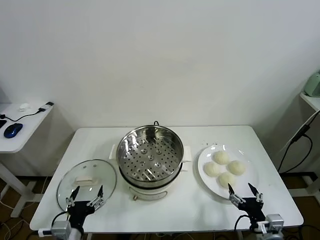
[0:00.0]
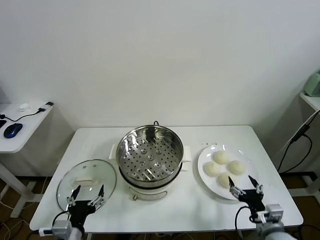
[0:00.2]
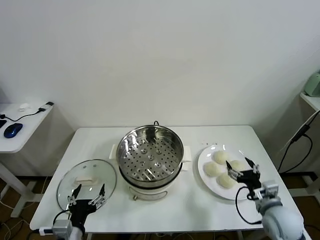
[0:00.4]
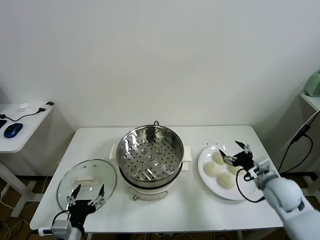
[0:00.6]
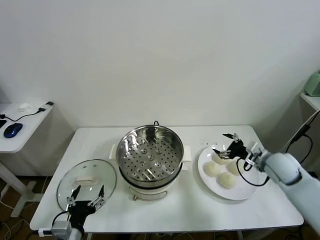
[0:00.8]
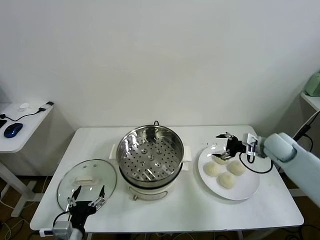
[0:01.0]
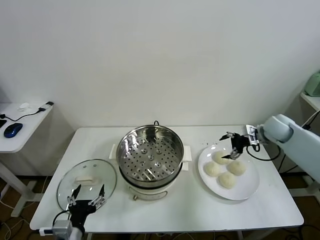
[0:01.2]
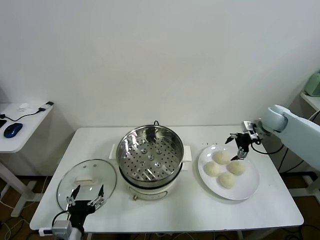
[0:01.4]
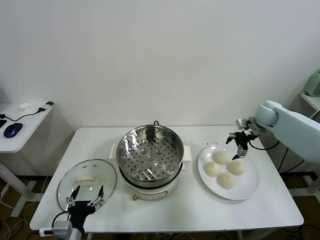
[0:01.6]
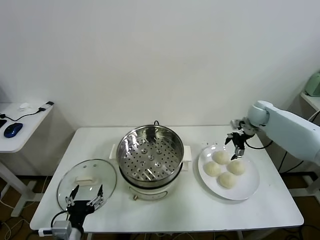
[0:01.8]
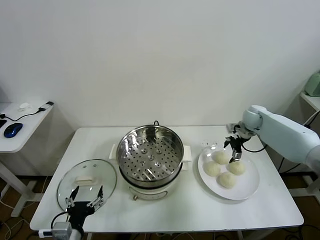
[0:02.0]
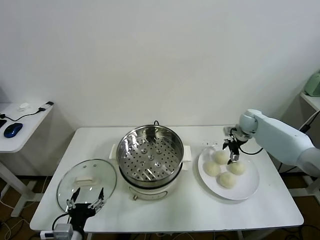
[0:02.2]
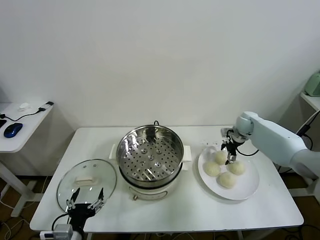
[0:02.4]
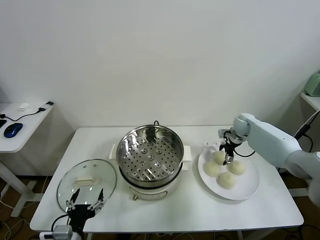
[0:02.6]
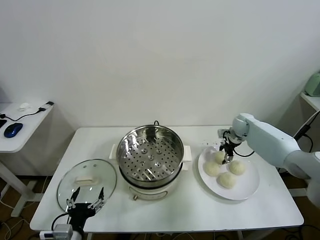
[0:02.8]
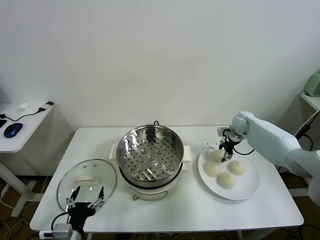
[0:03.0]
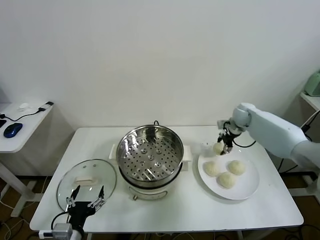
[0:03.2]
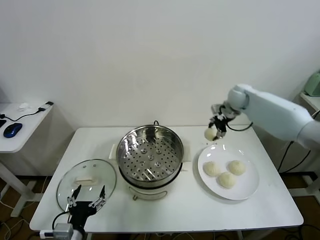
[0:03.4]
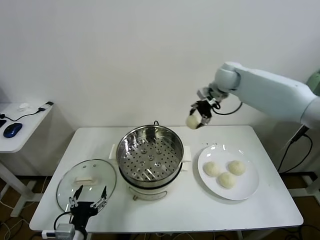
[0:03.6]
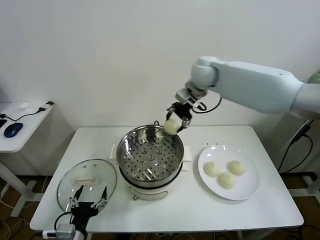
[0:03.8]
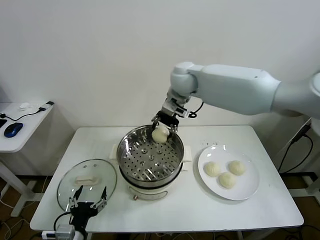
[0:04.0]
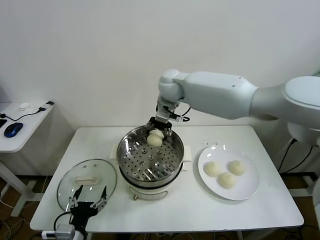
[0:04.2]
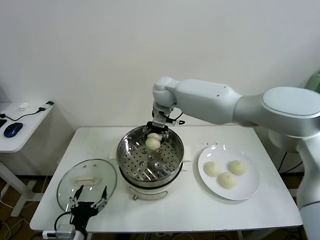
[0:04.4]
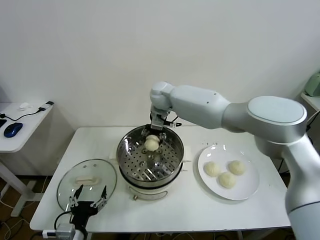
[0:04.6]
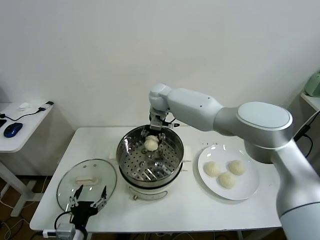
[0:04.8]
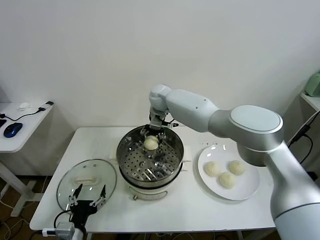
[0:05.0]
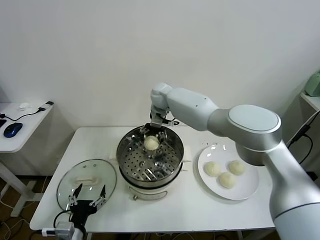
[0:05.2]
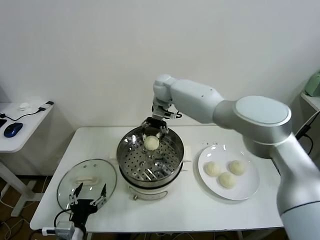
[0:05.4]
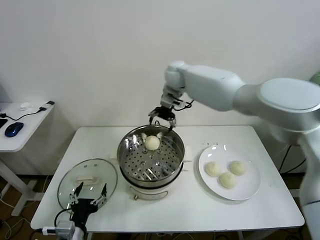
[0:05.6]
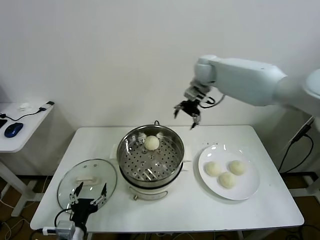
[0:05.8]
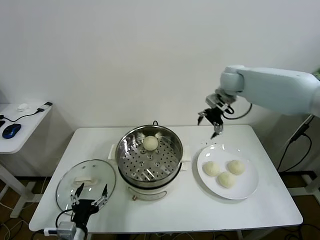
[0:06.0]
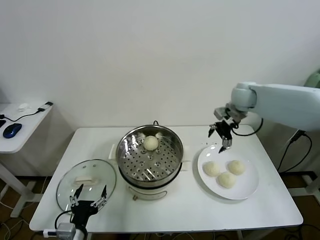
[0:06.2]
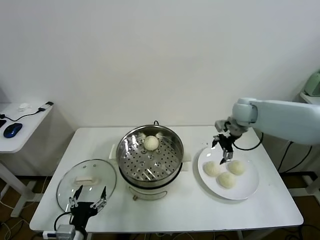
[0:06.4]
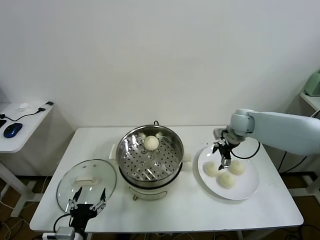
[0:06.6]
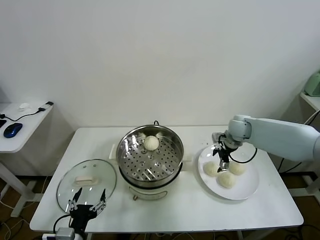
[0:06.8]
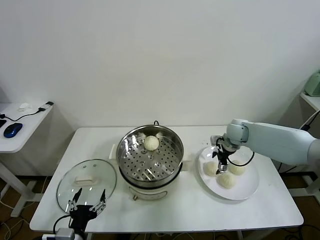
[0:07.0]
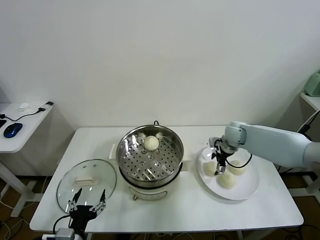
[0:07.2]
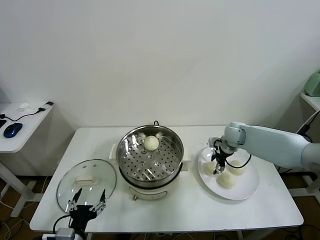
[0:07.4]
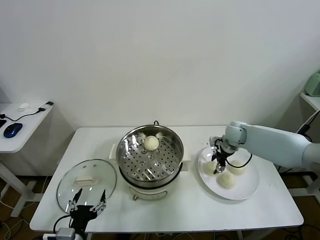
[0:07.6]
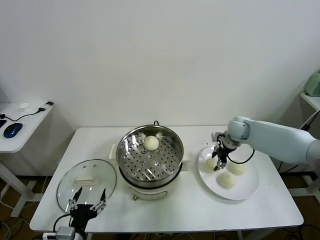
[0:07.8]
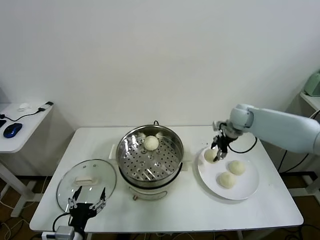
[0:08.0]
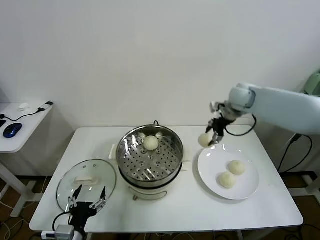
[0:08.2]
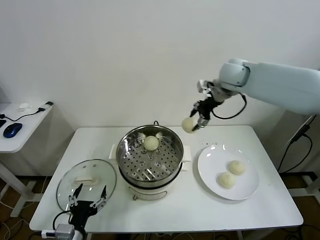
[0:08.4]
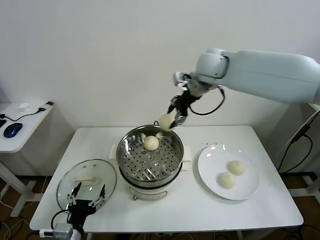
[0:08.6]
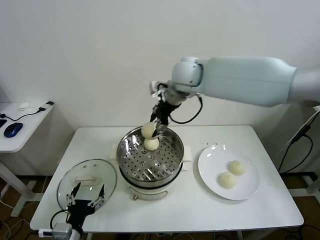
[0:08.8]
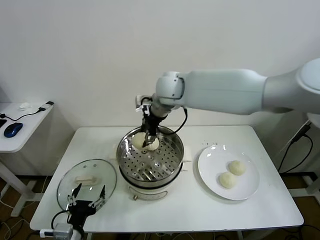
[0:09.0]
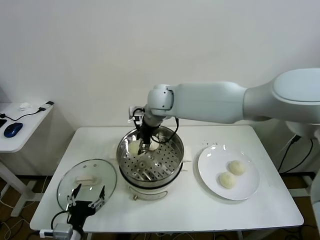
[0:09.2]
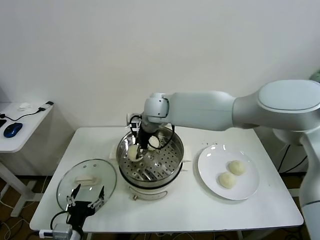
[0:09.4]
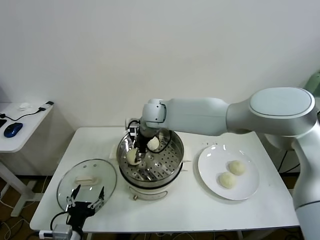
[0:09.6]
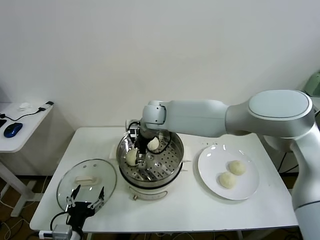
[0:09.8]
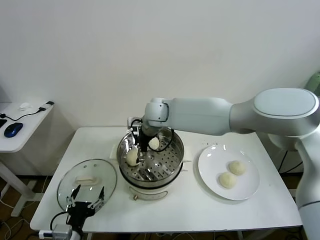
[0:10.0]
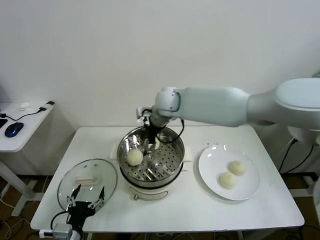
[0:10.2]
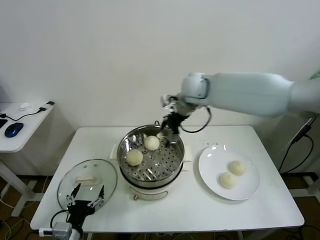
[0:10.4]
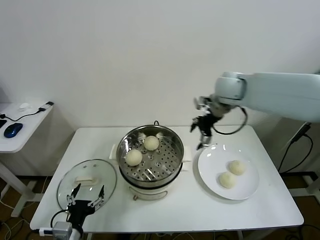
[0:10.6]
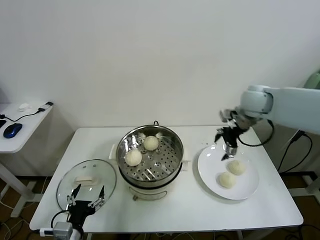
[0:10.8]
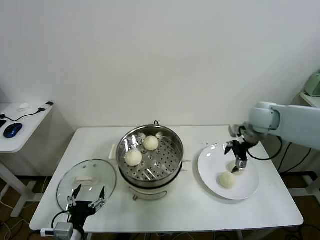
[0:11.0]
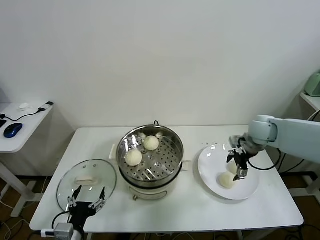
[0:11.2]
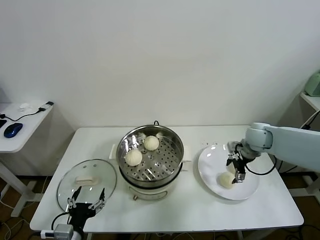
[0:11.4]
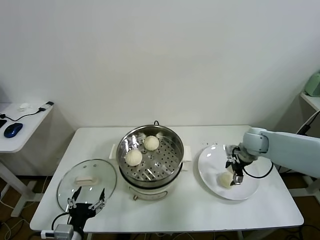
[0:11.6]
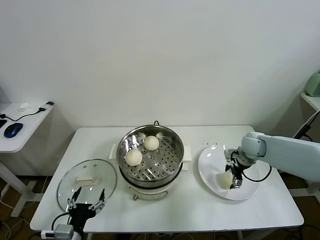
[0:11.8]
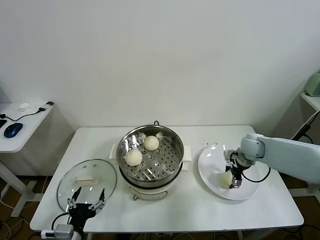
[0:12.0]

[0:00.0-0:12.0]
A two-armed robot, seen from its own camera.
Task of the whole recording: take steamed baozi put them in steamer.
Step, 0:00.0 to 0:02.8: Grasp the baozi in the plate with right gripper.
Step, 0:03.0 to 0:05.2: Place the baozi on the steamer with right gripper.
Step, 0:05.4 to 0:07.6: Grasp the baozi in the plate with right gripper.
Step, 0:07.8 to 0:10.0: Place the baozi on the steamer with right gripper.
0:01.6 to 0:03.0: The right gripper is displaced downward by approximately 5 cm, and closes.
0:03.0 to 0:04.4: The right gripper moves to the left and upward, approximately 35 cm.
0:04.4 to 0:06.0: The right gripper moves to the right, approximately 25 cm, and opens its fingers.
0:06.0 to 0:07.6: The right gripper heads downward, covering about 20 cm, and closes up.
0:07.6 to 0:09.0: The right gripper moves to the left and upward, roughly 35 cm.
0:09.0 to 0:10.4: The right gripper is displaced to the right by some 15 cm, and opens.
0:10.4 to 0:12.0: The right gripper travels downward and to the right by approximately 30 cm, and closes.

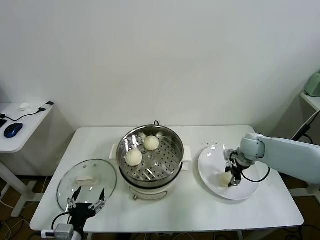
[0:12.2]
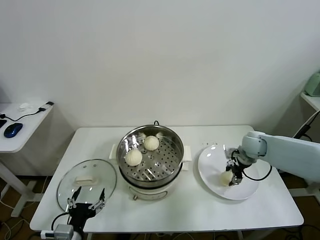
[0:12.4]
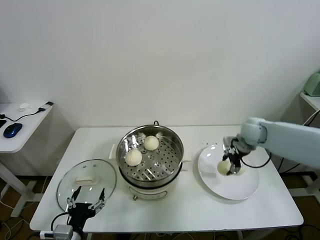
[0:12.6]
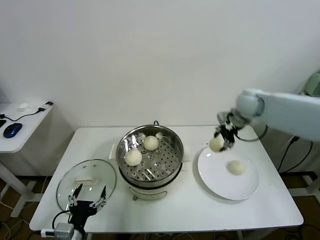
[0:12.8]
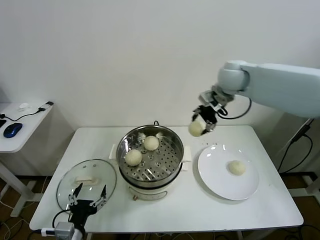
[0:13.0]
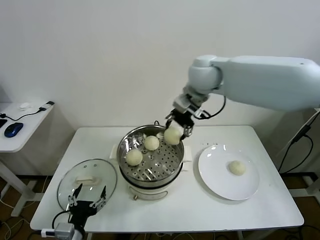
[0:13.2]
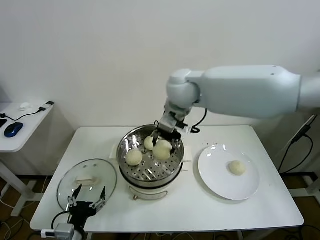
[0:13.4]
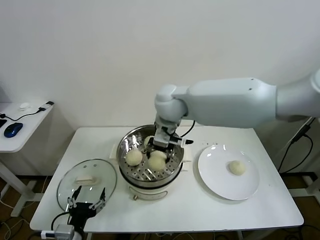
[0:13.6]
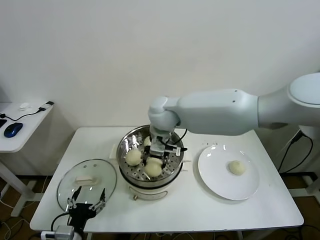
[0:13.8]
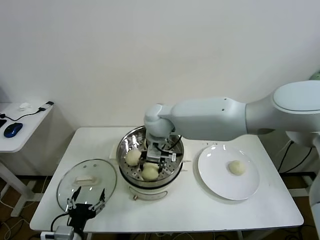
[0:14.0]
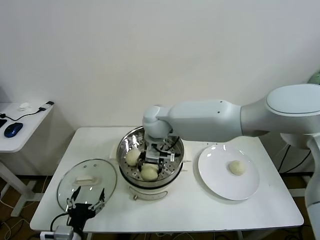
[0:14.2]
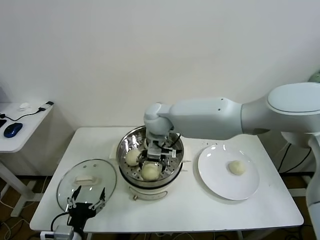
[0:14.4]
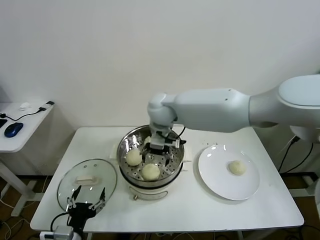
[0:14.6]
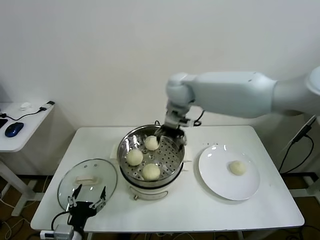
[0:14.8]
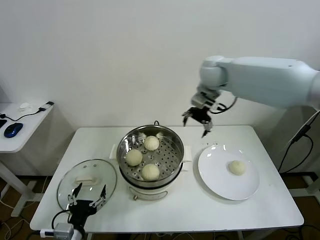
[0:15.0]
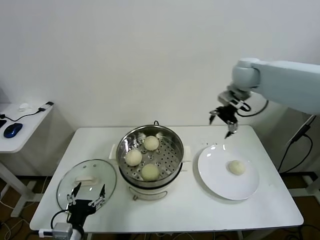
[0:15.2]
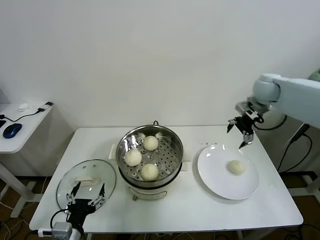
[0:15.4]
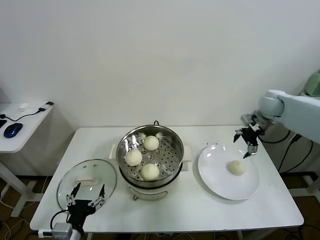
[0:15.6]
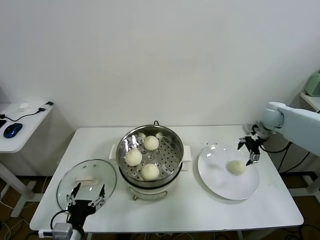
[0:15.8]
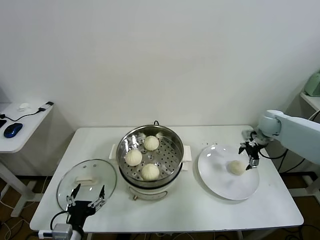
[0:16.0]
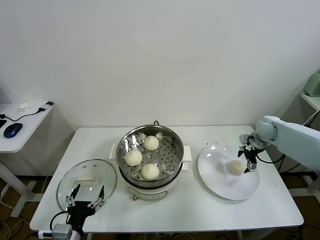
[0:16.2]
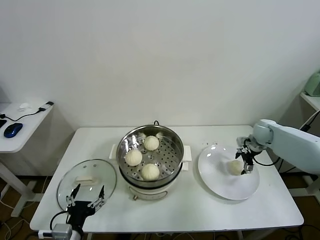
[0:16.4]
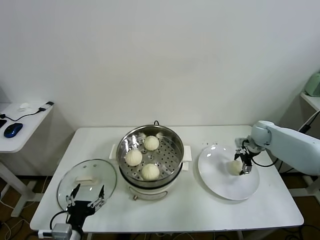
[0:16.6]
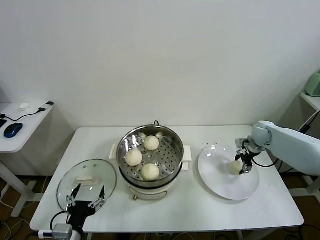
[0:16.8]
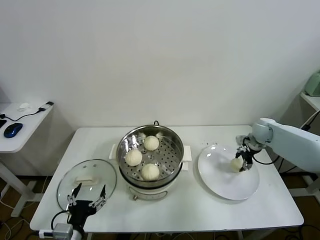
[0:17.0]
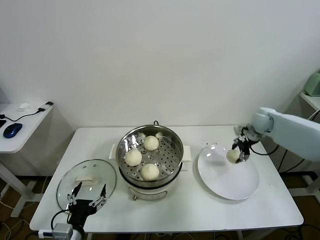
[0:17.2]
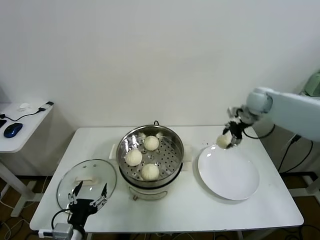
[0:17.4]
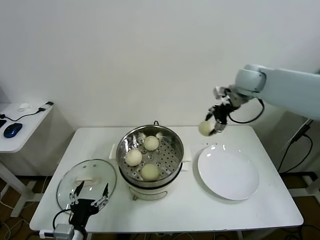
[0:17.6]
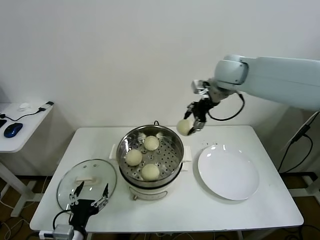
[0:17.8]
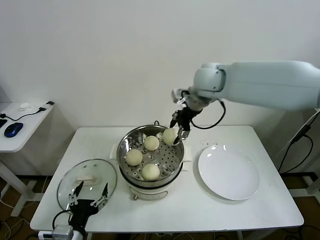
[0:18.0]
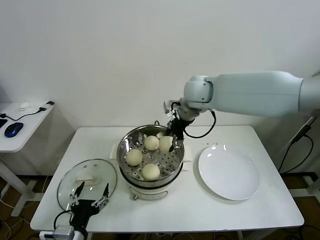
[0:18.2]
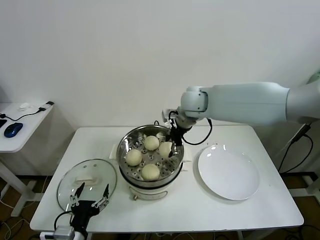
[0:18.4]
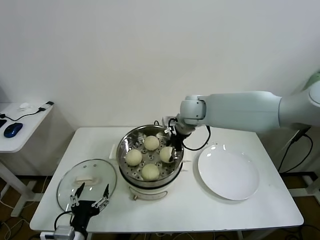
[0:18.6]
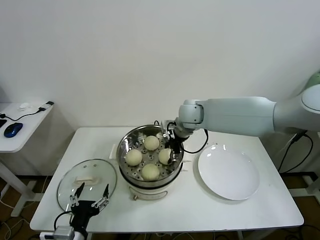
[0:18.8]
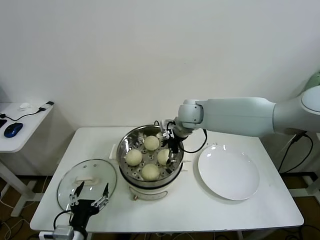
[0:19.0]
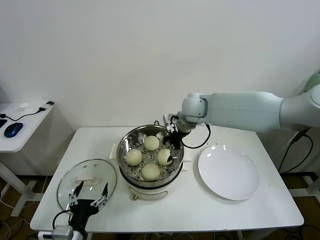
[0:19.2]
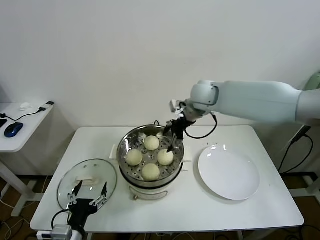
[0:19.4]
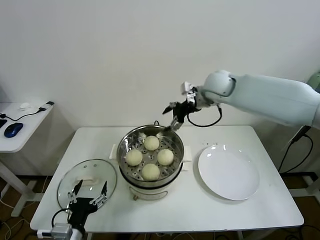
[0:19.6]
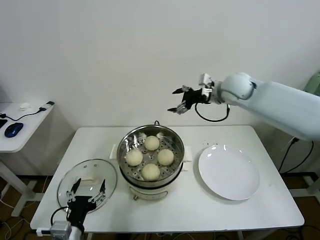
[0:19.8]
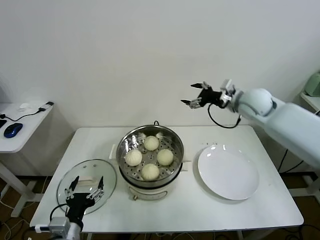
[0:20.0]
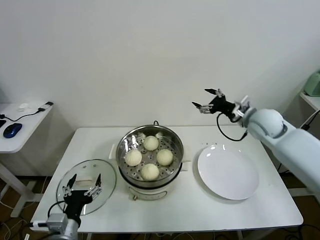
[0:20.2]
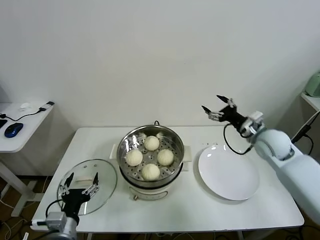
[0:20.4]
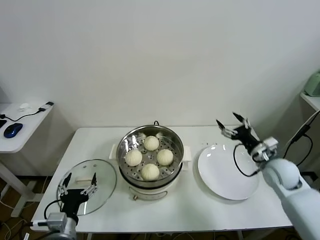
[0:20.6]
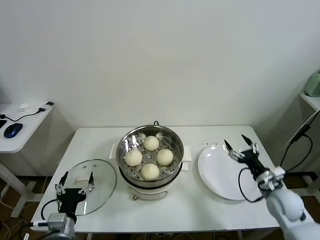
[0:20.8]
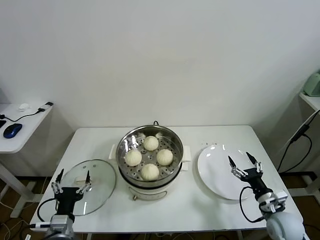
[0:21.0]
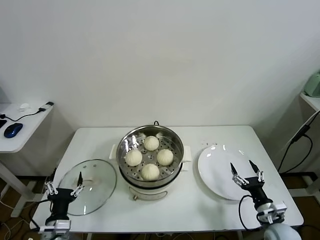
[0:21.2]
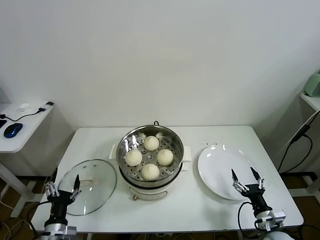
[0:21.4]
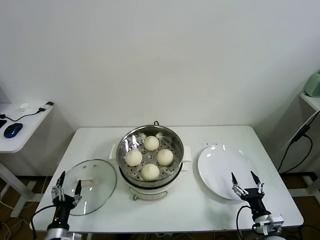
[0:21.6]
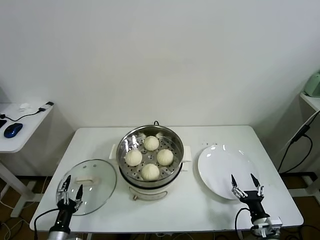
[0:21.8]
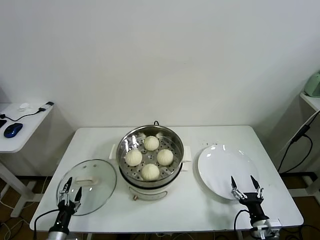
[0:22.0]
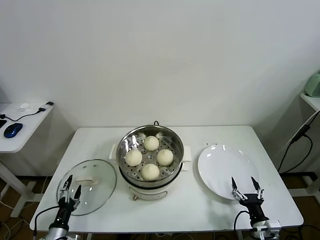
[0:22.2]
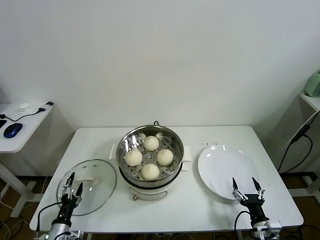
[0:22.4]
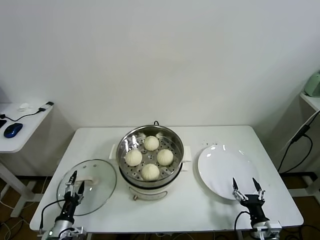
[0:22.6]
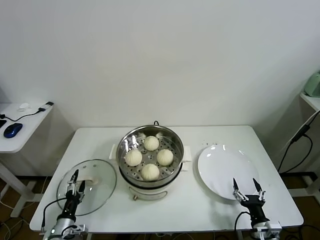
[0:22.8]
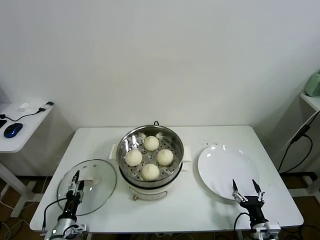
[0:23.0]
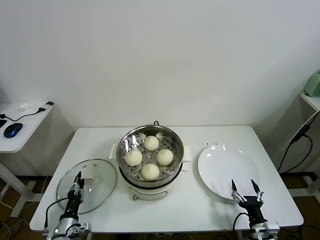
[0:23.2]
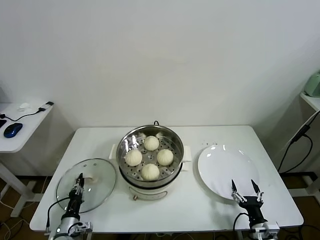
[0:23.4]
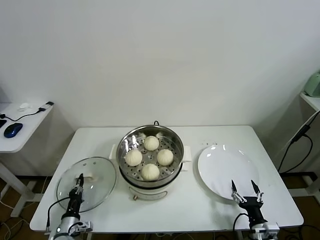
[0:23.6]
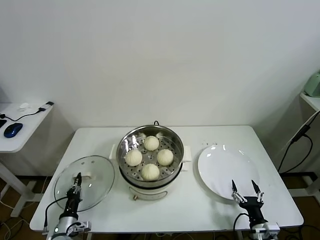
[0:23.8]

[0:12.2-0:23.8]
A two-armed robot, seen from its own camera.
Task of the whole recording: take steamed baozi put them in steamer.
Step, 0:12.2 to 0:14.4: Place the baozi on the steamer with right gripper.
Step, 0:14.8 to 0:16.8: Grasp the baozi in the plate with right gripper.
Step, 0:17.0 to 0:19.0: Place the baozi on the steamer with right gripper.
Step, 0:19.2 to 0:23.4: Grasp the pot lid with left gripper.
0:12.2 to 0:13.6: The right gripper is displaced to the left and upward by roughly 40 cm.
0:13.6 to 0:15.0: The right gripper moves to the right and forward, about 20 cm, and opens up.
0:15.0 to 0:16.6: The right gripper shifts some 35 cm downward and to the right.
0:16.6 to 0:18.0: The right gripper travels to the left and upward by some 35 cm, and closes.
0:18.0 to 0:19.4: The right gripper goes roughly 5 cm downward, and opens.
0:19.4 to 0:21.0: The left gripper ends up approximately 5 cm from where it was. The right gripper heads downward, backward and to the right, covering about 50 cm.
0:21.0 to 0:22.4: The right gripper moves backward and downward, roughly 10 cm. The left gripper moves downward and to the left, approximately 15 cm.
0:22.4 to 0:23.8: The left gripper closes its fingers.
